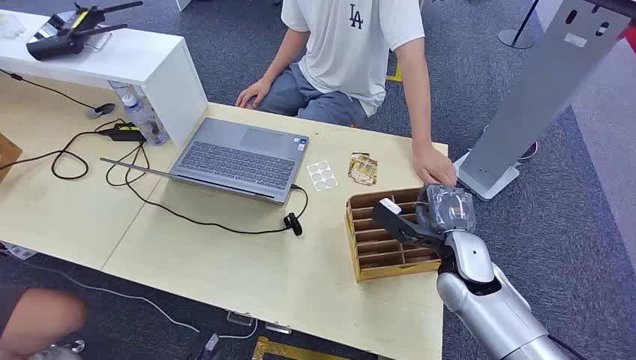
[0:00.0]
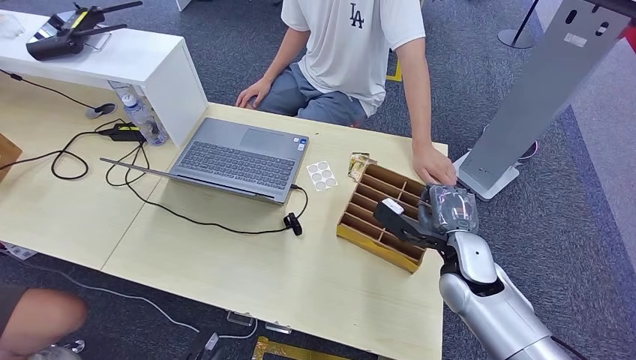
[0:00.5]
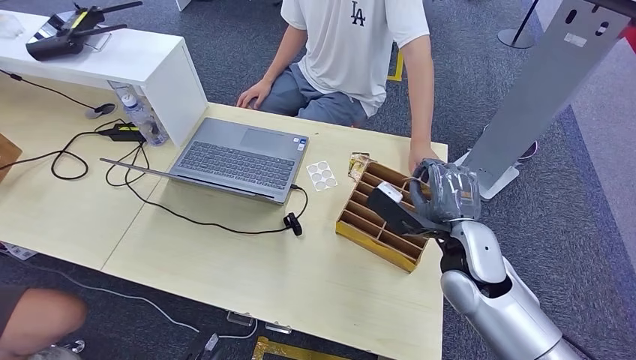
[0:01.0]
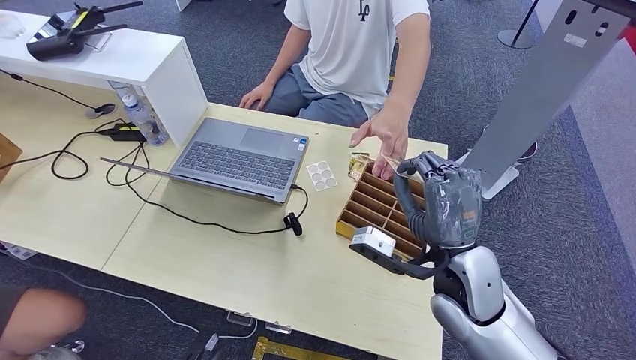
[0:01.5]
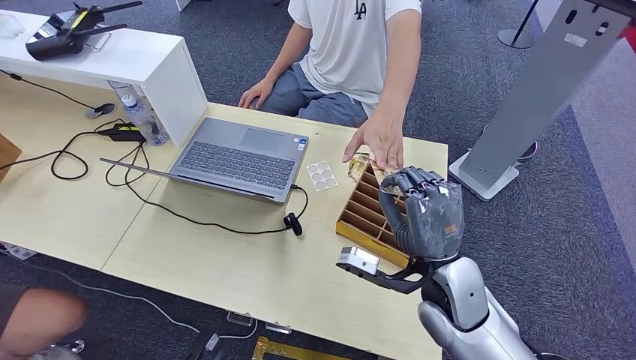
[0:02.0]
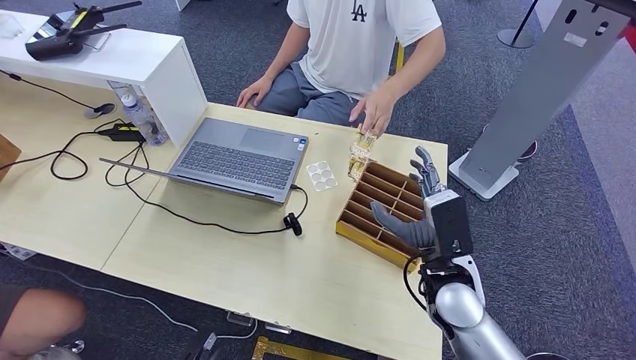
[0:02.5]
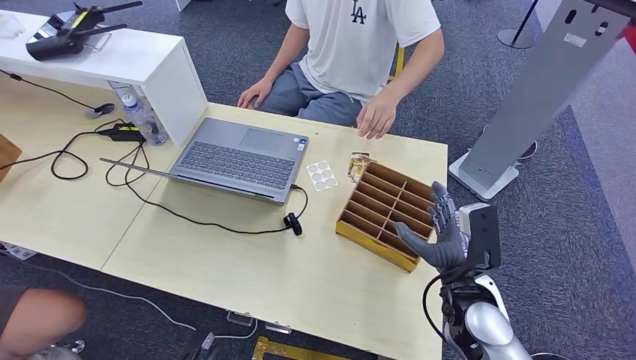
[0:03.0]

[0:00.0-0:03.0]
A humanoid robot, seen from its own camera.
Step, 0:00.0 to 0:01.5: Pick up the room card from the card holder.
Step, 0:02.0 to 0:03.0: Hand the room card to the target.
0:01.5 to 0:03.0: The right hand travels downward by about 10 cm.

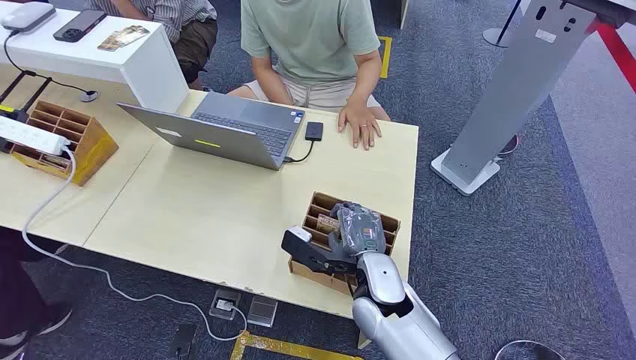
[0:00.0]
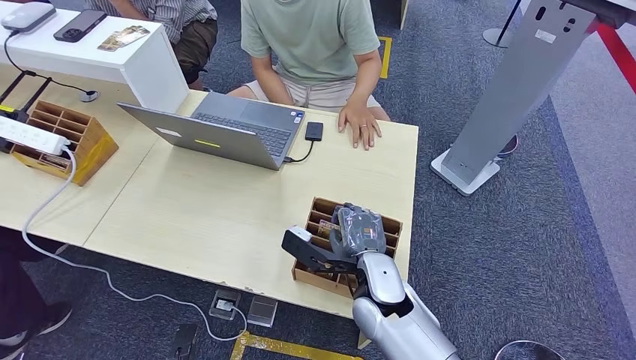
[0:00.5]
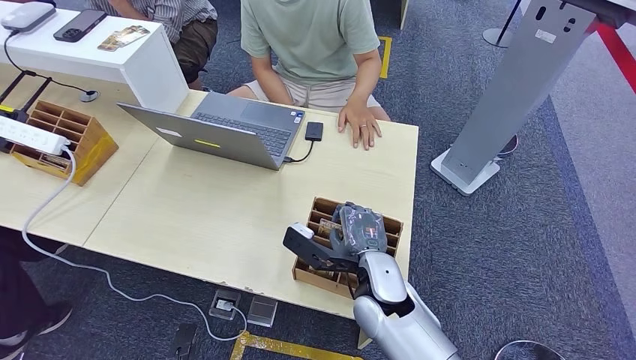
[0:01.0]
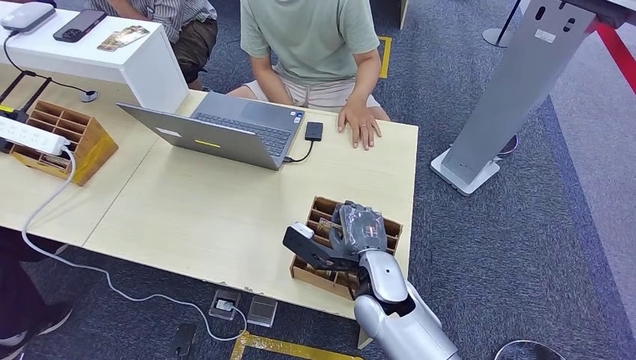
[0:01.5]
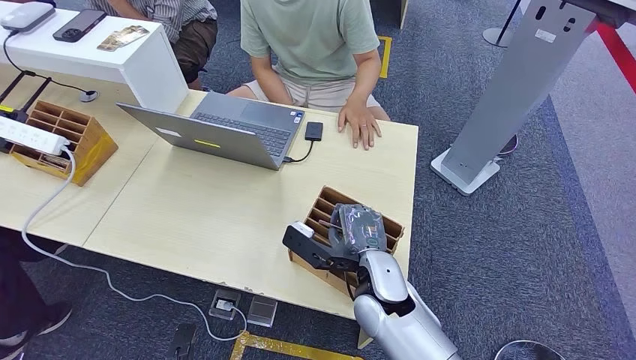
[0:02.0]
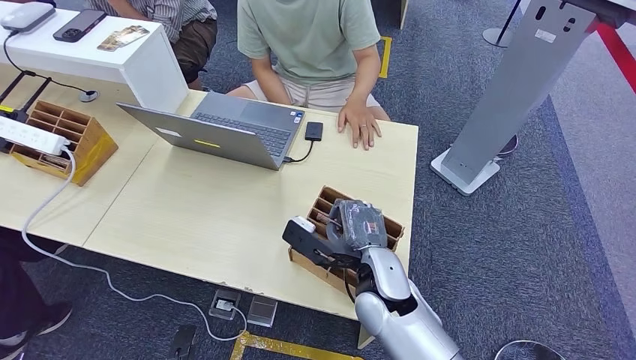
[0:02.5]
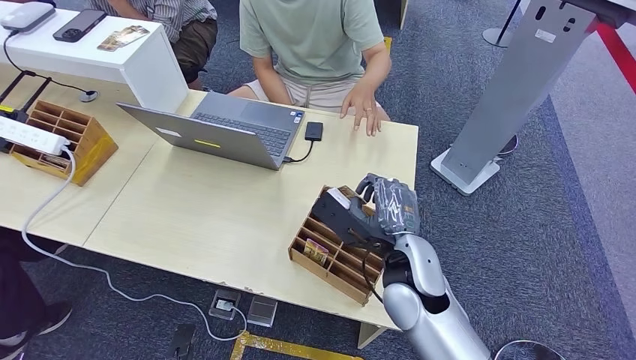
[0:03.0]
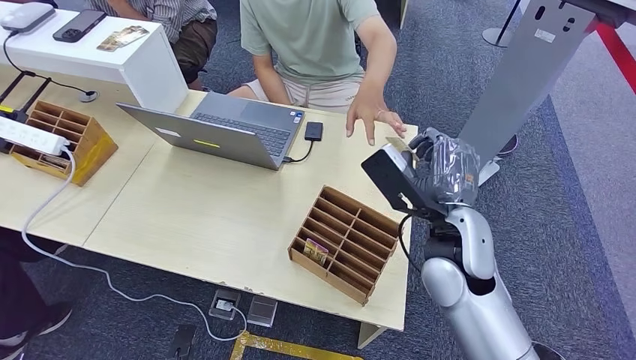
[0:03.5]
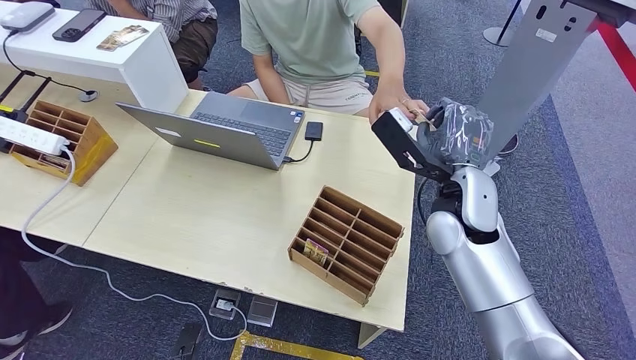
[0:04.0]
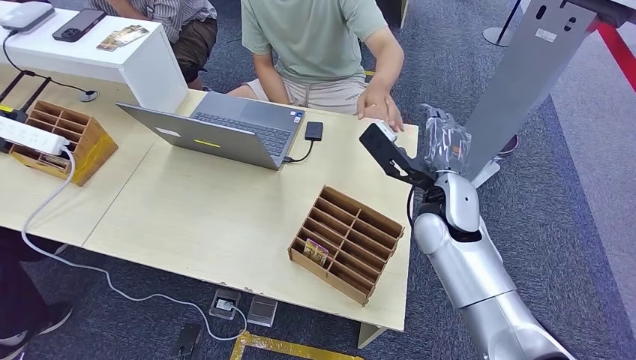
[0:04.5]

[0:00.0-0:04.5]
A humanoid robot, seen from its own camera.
Step, 0:00.0 to 0:02.5: Pick up the room card from the card holder.
Step, 0:03.5 to 0:04.5: Hand the room card to the target.
0:02.0 to 0:04.5: The right hand travels forward, upward and to the right by roughly 15 cm.
